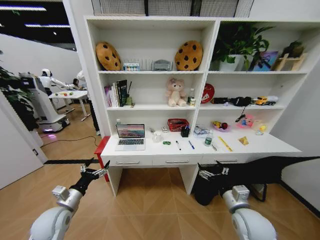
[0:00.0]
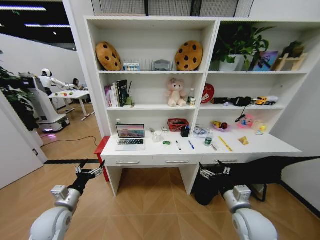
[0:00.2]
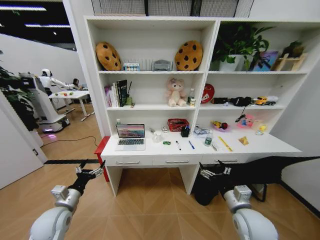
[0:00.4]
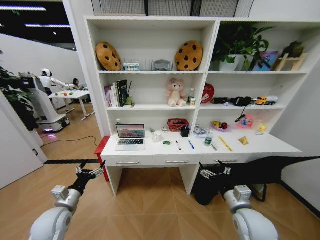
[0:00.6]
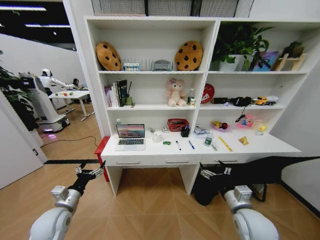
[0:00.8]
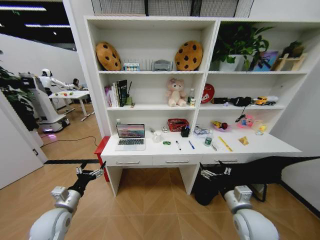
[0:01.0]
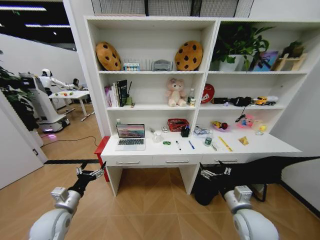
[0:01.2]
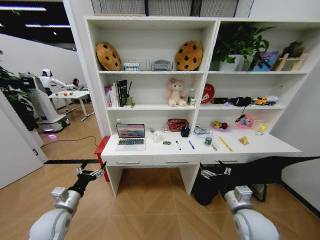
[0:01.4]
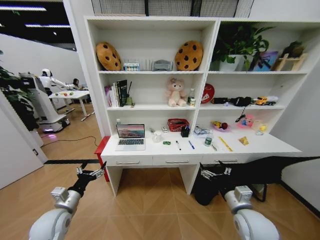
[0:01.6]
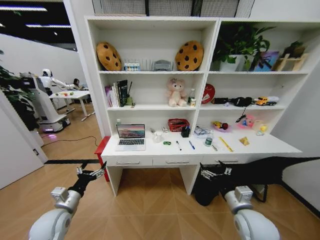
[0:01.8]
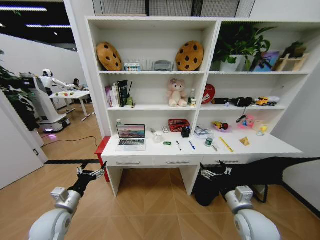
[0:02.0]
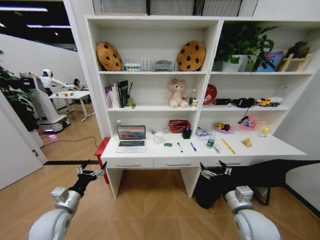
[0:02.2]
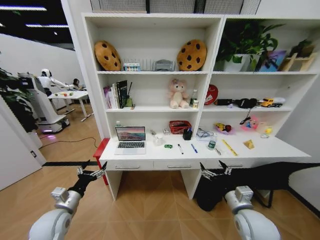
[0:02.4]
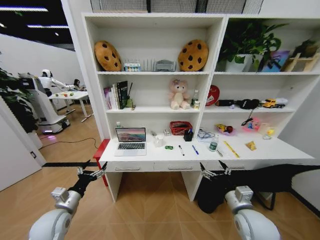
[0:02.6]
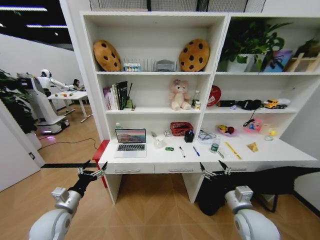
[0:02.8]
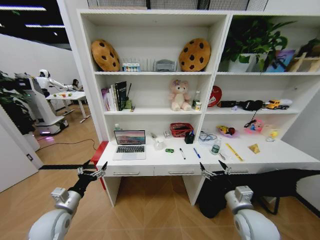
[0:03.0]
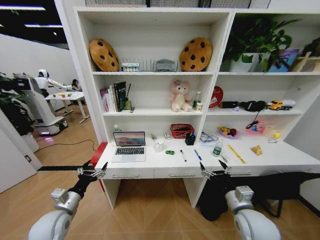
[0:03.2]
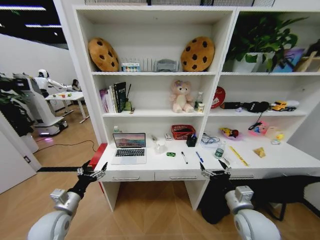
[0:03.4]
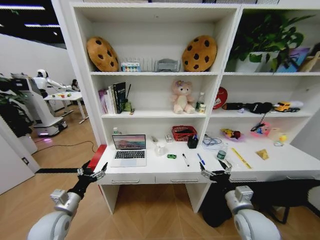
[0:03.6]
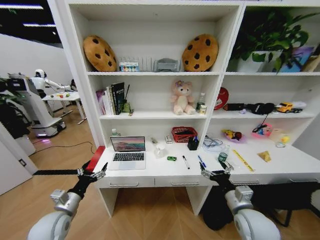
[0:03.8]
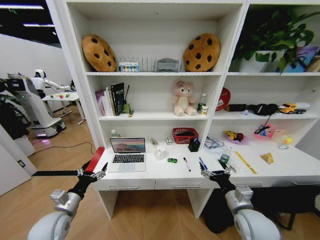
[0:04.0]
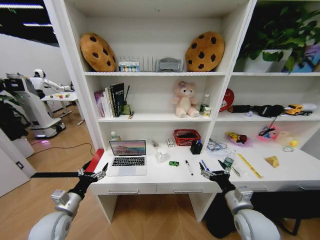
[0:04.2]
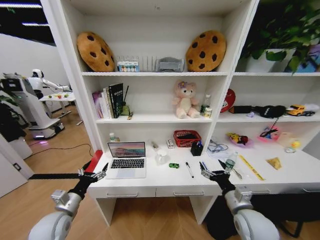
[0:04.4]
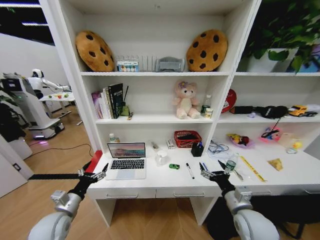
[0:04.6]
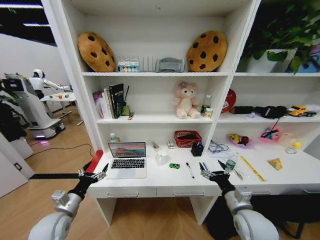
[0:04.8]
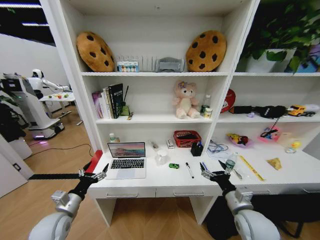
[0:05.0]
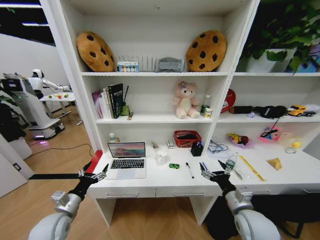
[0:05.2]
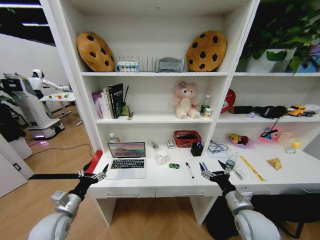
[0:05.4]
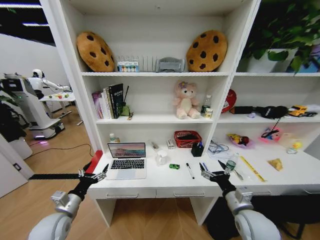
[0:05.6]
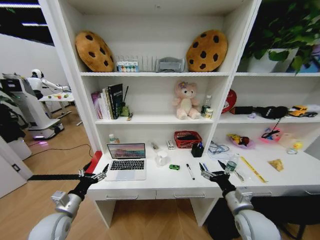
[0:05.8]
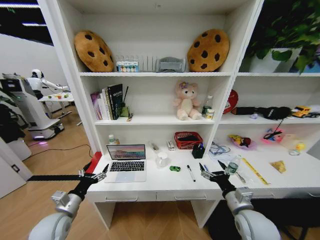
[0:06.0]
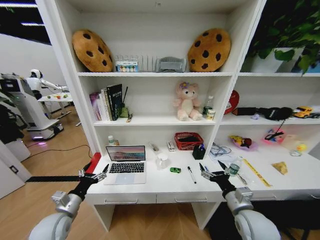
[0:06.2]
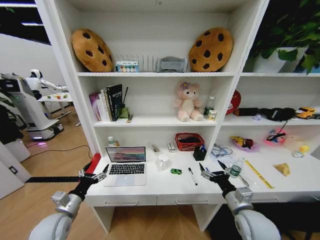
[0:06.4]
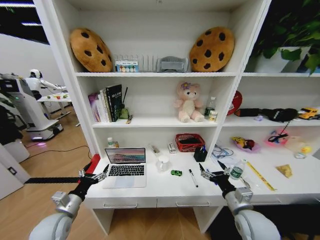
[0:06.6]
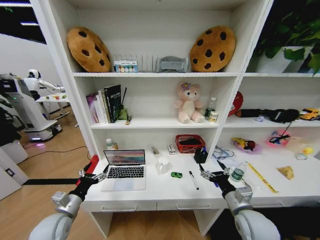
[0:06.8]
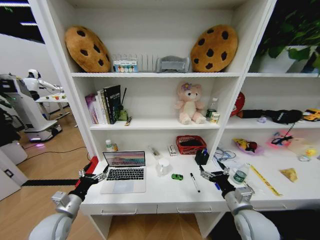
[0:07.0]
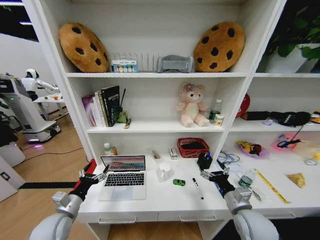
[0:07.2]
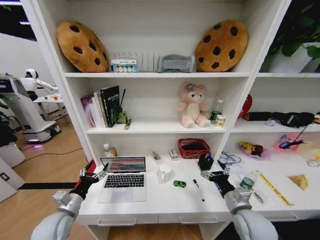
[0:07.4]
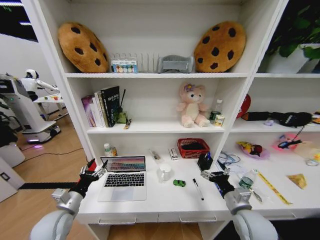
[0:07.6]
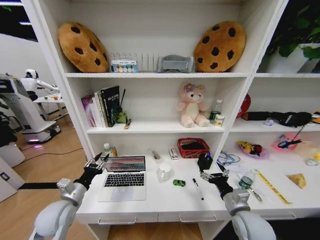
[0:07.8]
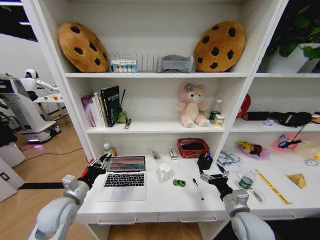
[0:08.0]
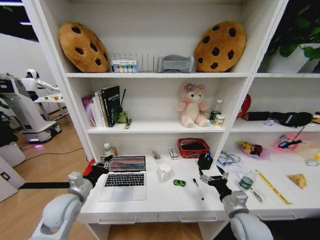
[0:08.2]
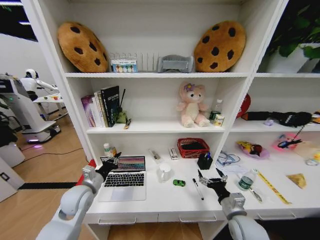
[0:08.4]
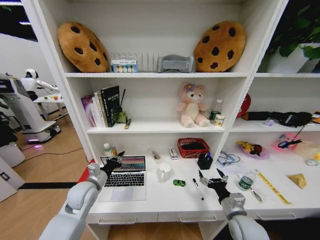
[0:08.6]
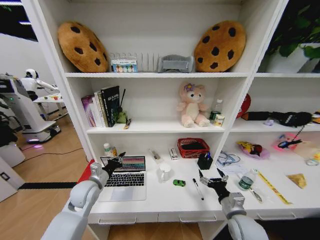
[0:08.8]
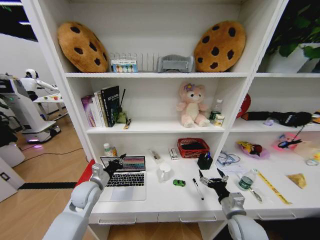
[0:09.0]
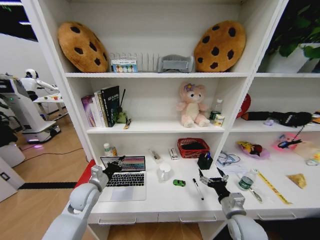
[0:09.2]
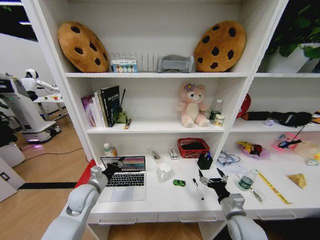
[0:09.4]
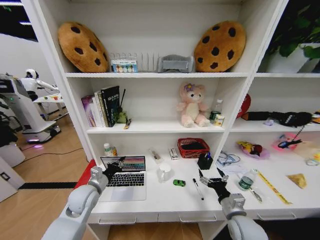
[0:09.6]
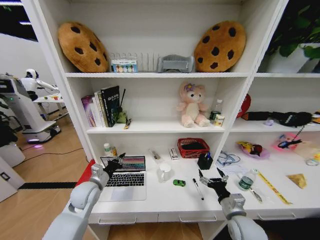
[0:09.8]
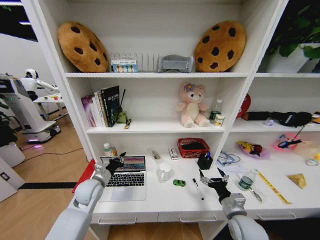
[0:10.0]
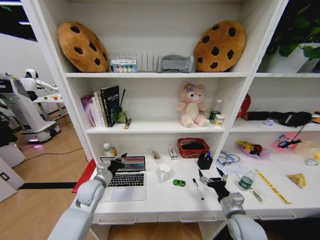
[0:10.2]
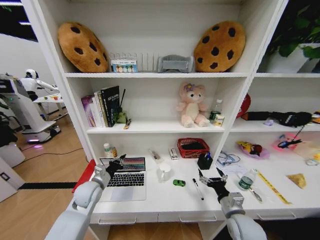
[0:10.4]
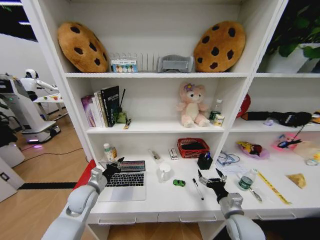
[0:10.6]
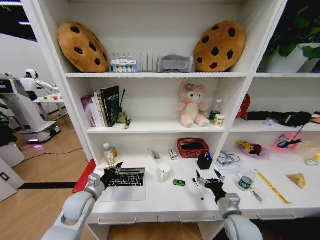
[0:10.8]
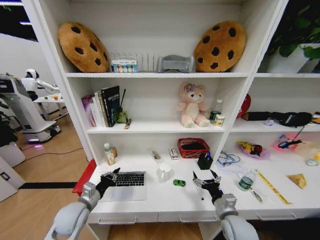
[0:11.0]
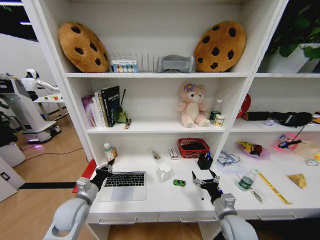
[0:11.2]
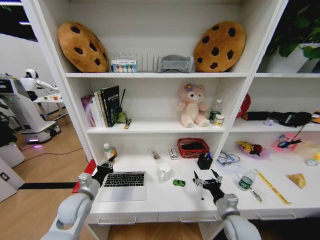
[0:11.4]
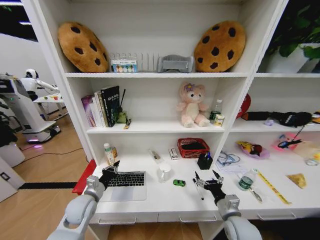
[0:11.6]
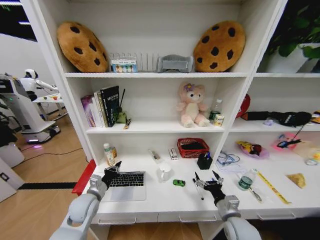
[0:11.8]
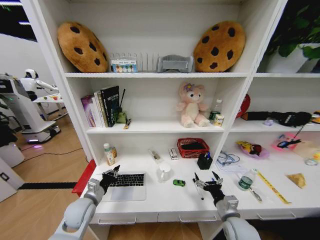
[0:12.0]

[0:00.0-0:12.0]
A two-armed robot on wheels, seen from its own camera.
Task of the whole recording: Organize the objects on the table.
0:04.4 to 0:06.0: Both grippers stay put.
0:07.6 to 0:09.0: The left gripper travels forward and to the right by some 10 cm, and closes its fingers.
0:09.0 to 0:10.4: The grippers move only a little.
0:10.4 to 0:12.0: The left gripper is displaced backward by approximately 5 cm.

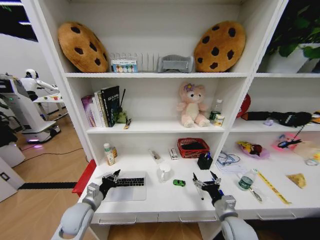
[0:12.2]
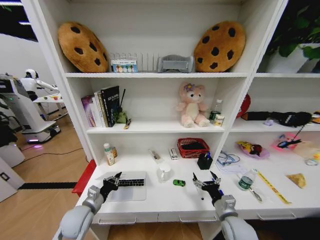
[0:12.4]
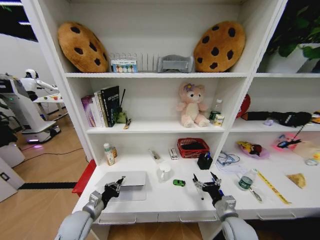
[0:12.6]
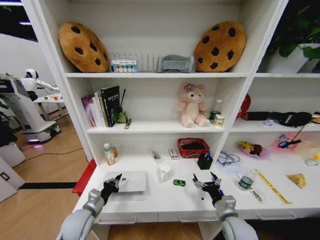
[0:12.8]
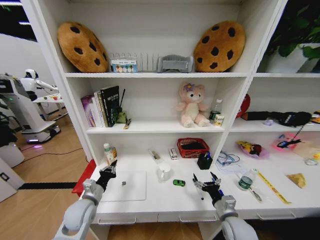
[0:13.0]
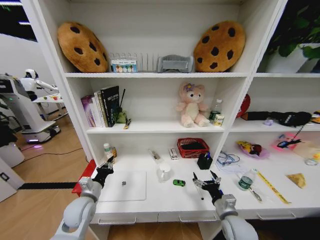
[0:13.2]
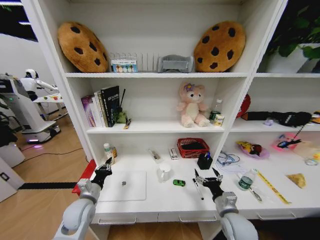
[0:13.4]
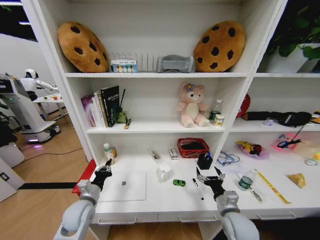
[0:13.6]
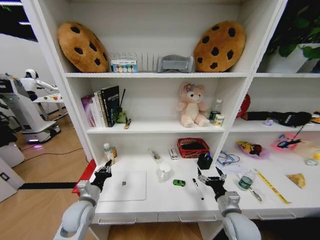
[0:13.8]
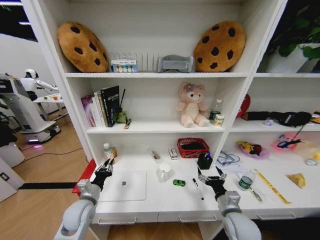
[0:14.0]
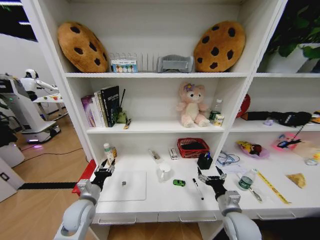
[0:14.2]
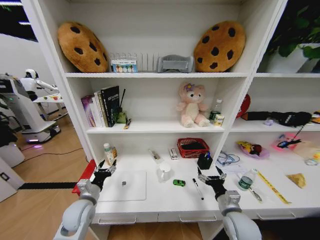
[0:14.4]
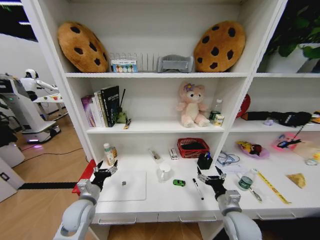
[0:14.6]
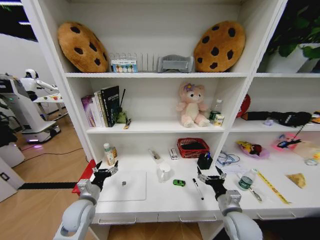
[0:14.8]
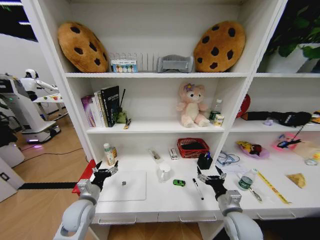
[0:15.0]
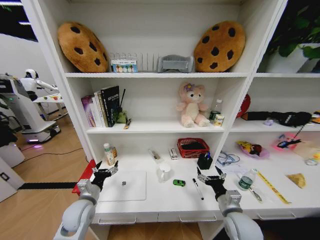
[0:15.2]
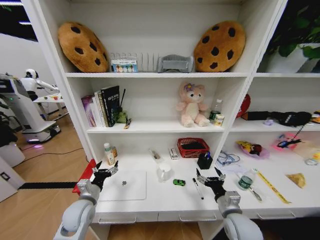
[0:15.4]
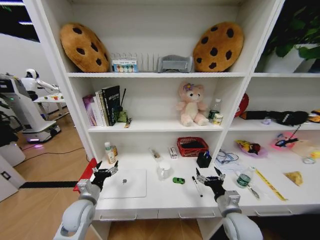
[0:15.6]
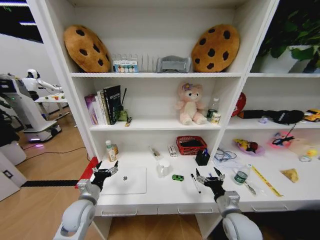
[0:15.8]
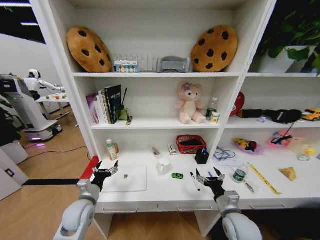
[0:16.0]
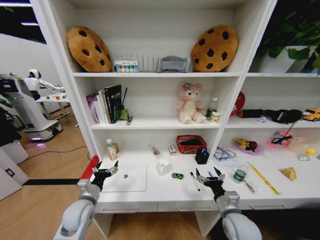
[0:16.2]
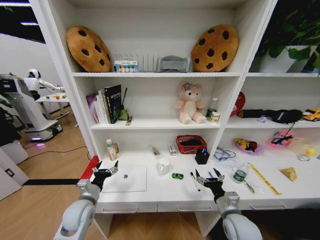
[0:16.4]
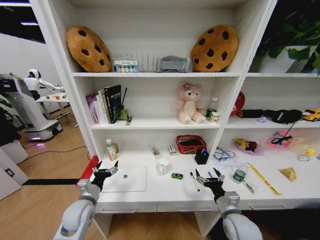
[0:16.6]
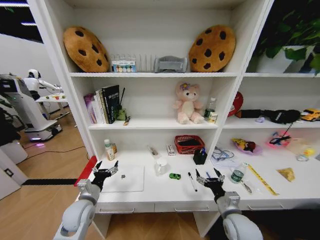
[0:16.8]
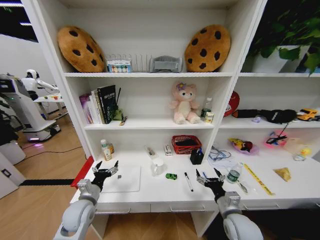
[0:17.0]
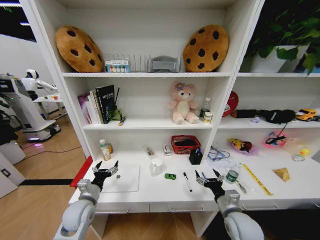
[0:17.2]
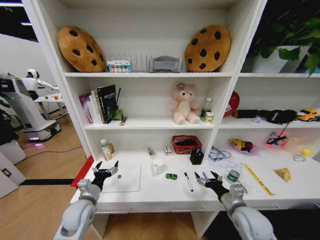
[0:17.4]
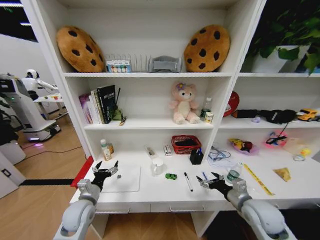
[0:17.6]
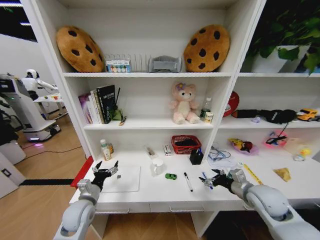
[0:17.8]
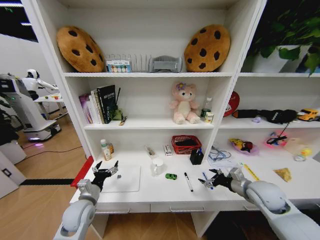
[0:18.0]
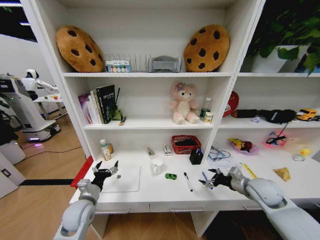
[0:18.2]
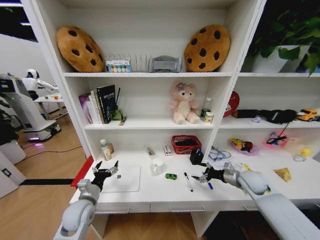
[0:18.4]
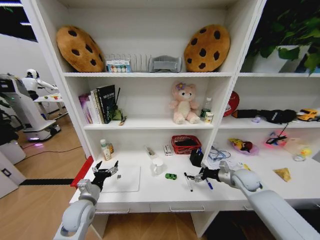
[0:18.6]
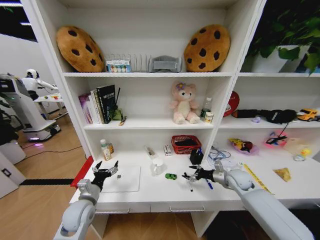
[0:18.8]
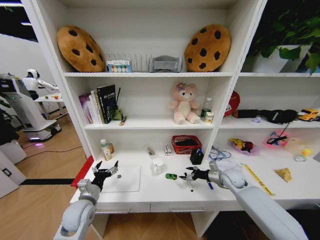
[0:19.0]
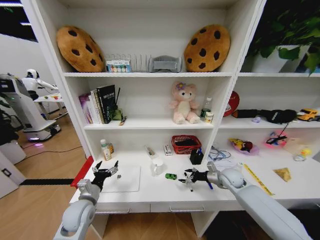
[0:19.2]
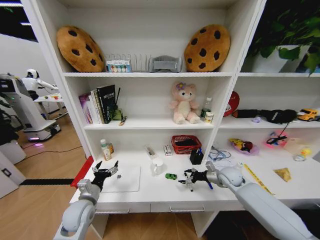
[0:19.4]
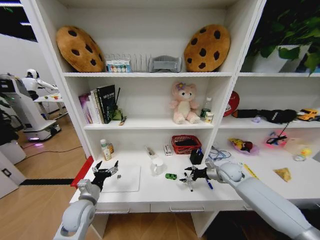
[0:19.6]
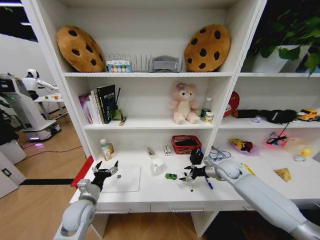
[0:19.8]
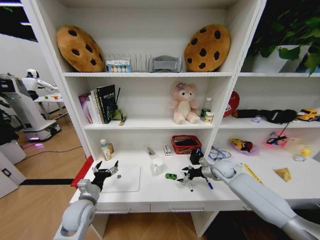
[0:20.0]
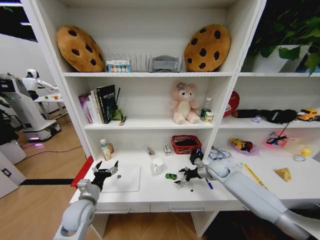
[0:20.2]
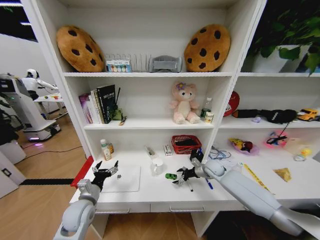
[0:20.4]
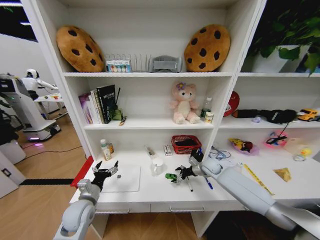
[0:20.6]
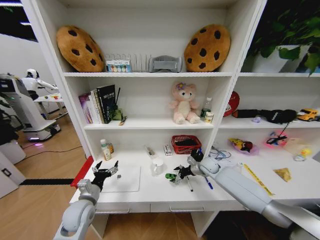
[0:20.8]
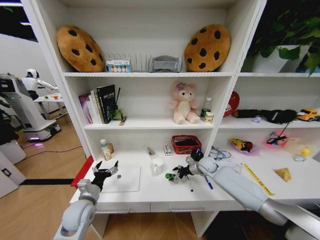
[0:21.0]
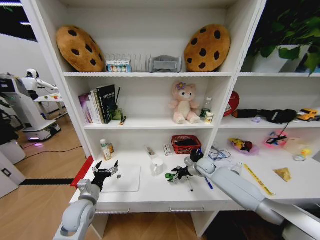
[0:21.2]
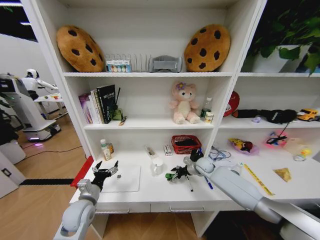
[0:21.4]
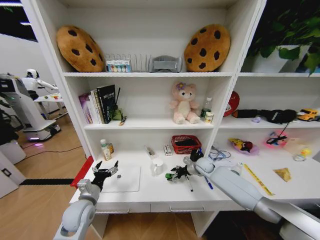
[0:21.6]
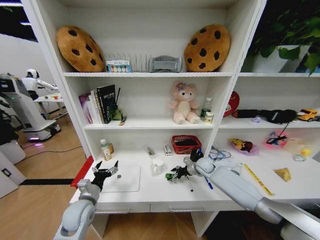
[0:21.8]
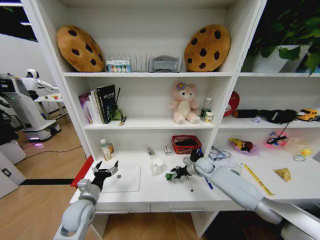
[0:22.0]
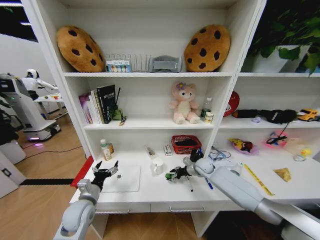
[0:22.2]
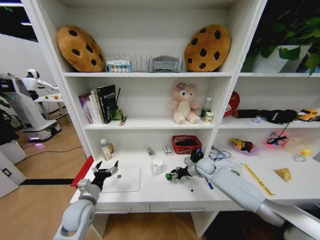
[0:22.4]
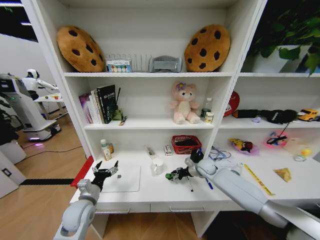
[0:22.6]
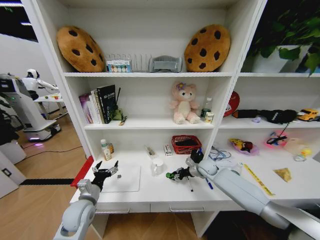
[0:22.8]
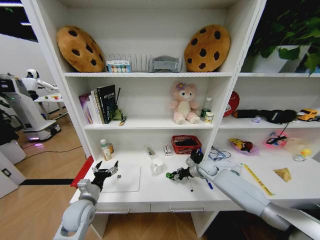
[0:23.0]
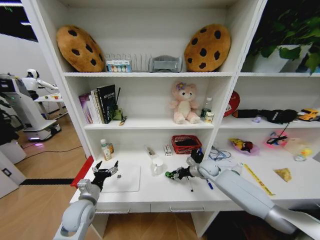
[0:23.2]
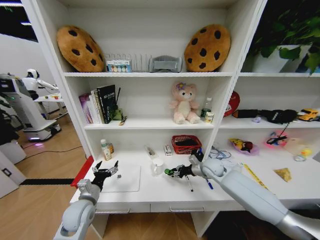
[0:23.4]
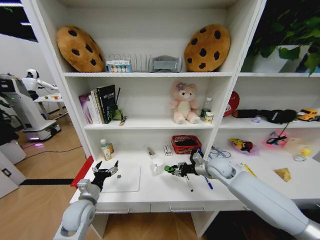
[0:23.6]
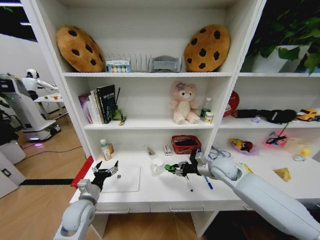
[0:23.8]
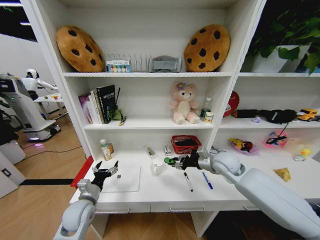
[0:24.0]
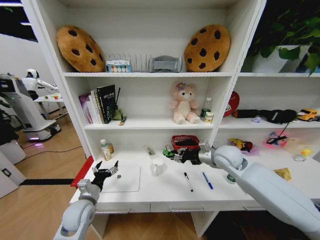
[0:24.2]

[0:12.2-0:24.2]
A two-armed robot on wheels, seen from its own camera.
Task of the whole recording: Organize the objects on the table.
0:13.8 to 0:15.2: The left gripper opens up.
0:16.6 to 0:18.2: The right gripper heads to the right, forward and upward, covering roughly 20 cm.
0:18.2 to 0:19.8: The right gripper is displaced forward by roughly 10 cm.
0:19.8 to 0:21.2: The right gripper heads to the left and forward, covering approximately 10 cm.
0:21.2 to 0:22.6: The two grippers keep their place.
0:22.6 to 0:24.2: The right gripper shifts roughly 20 cm upward and backward.
